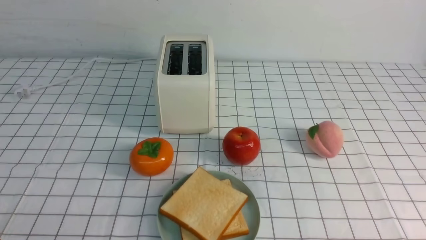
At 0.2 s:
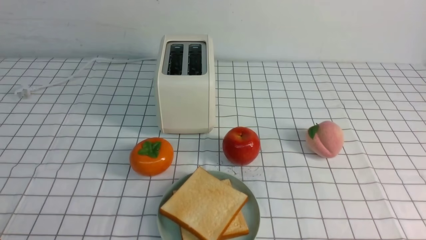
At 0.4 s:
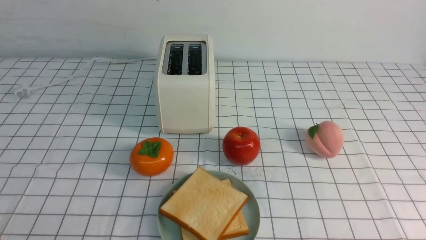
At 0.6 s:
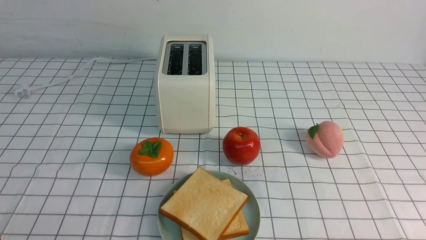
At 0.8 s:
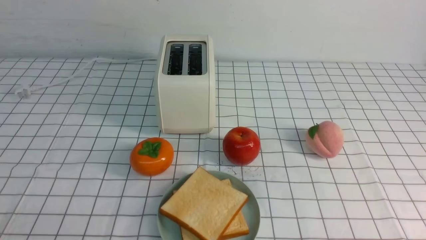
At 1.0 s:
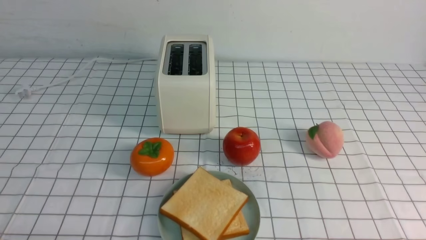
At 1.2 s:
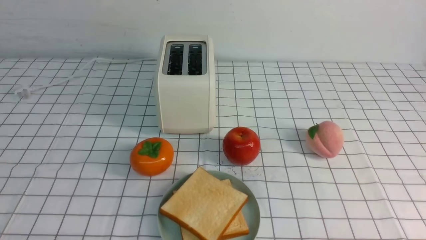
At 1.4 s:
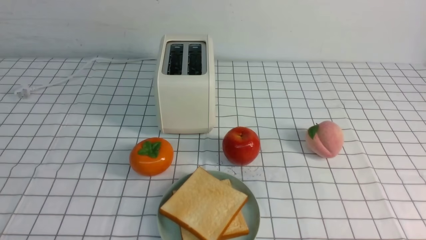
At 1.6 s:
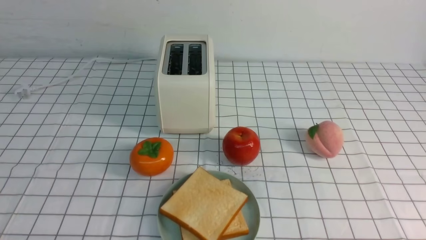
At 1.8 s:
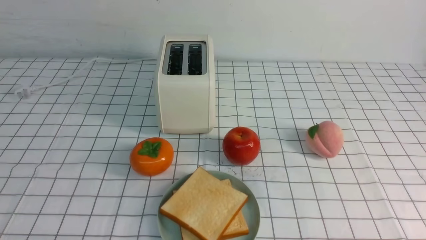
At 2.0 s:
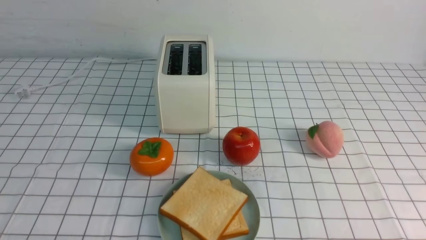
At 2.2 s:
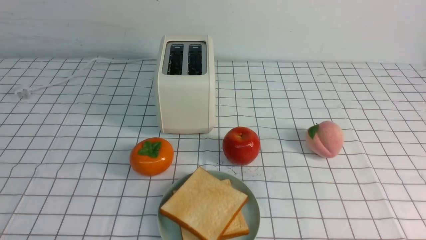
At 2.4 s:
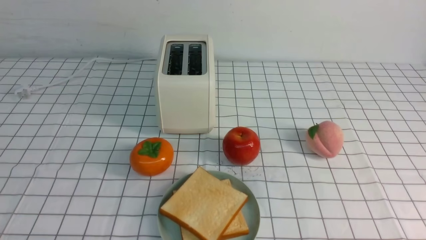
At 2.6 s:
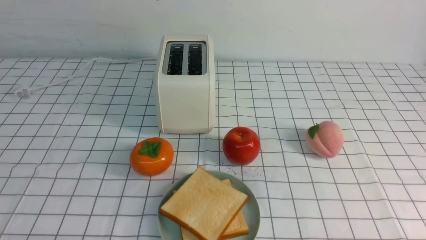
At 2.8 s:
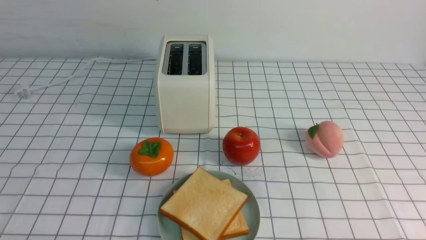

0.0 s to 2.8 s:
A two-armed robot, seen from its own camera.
Task of the whole recording: take toasted bread from bread machine on white checkered table place on plate.
1.4 to 2.8 s: Neither gripper changes place.
